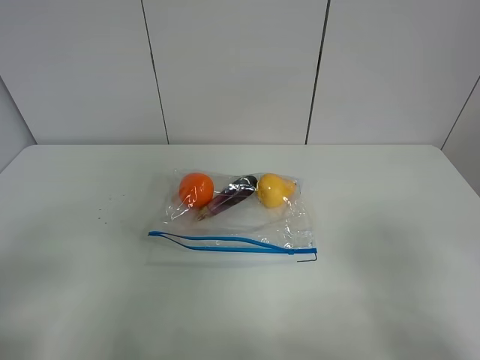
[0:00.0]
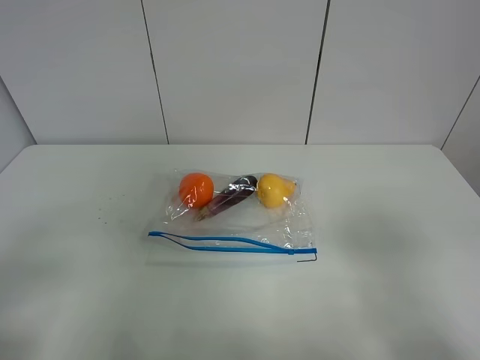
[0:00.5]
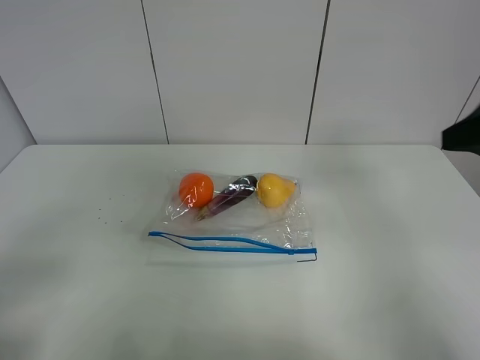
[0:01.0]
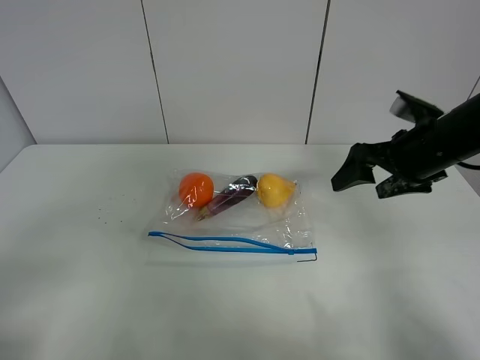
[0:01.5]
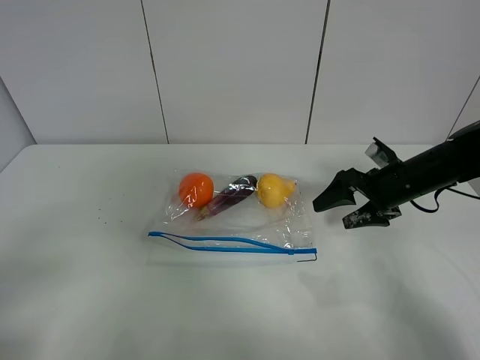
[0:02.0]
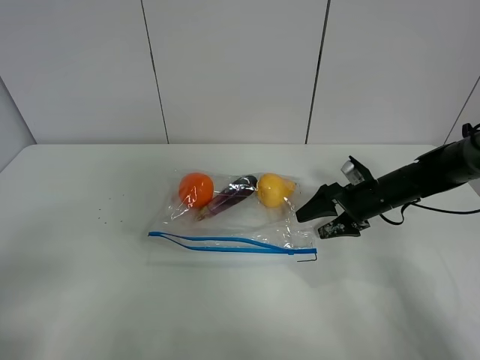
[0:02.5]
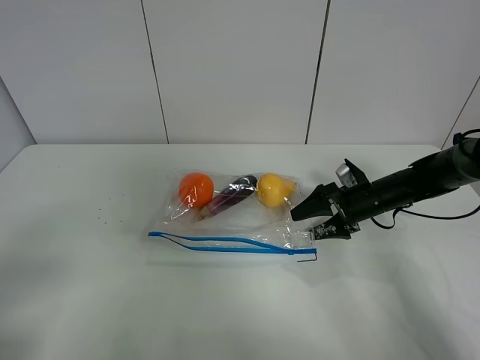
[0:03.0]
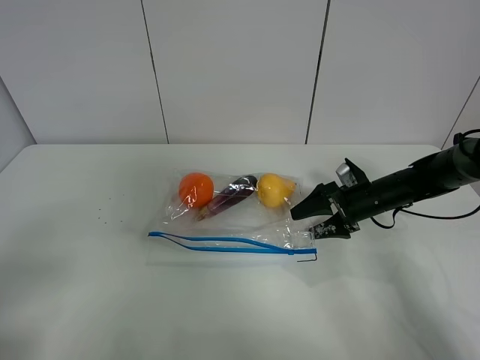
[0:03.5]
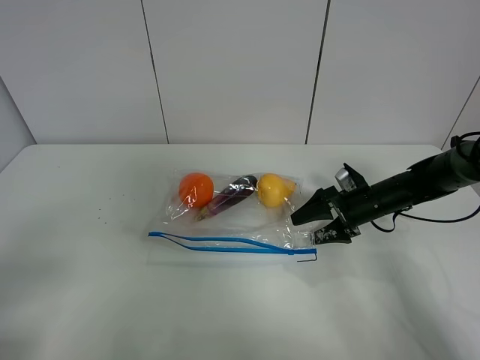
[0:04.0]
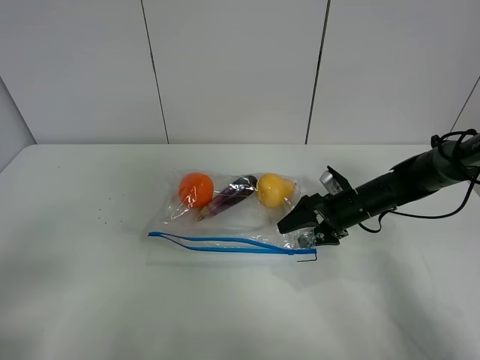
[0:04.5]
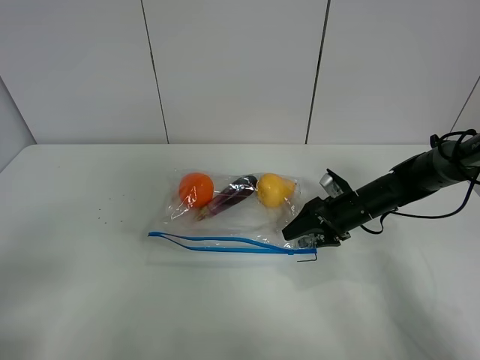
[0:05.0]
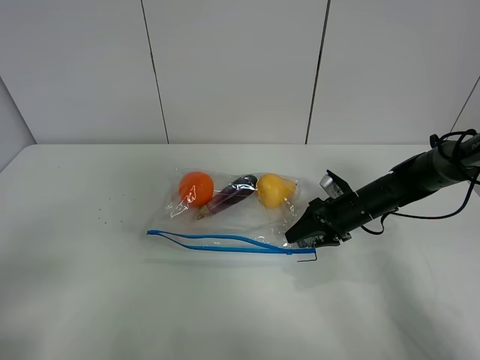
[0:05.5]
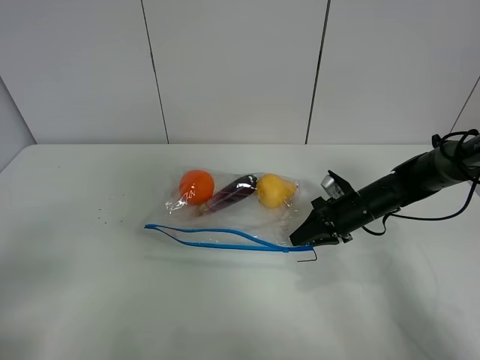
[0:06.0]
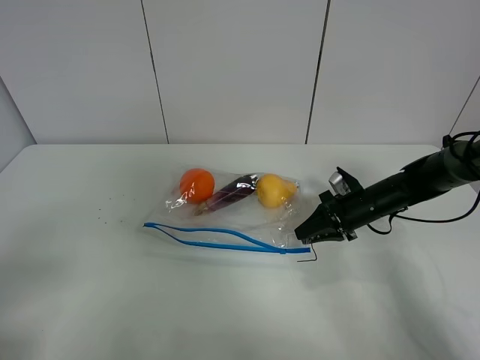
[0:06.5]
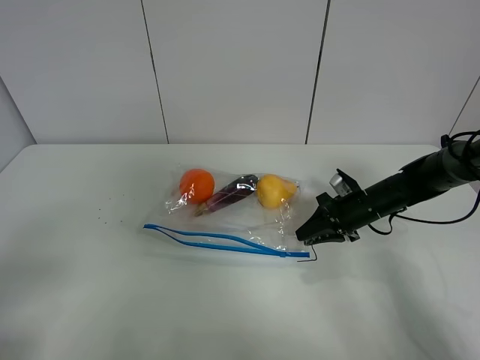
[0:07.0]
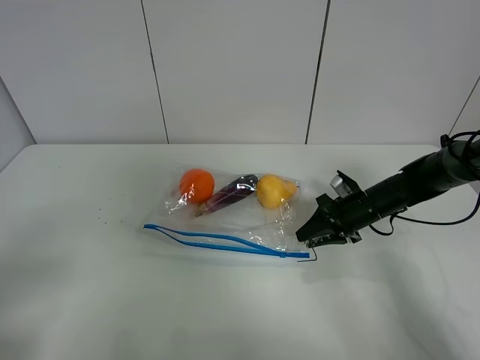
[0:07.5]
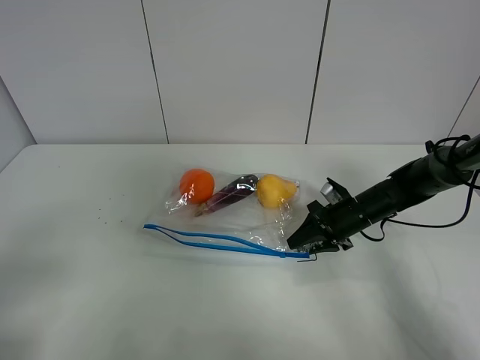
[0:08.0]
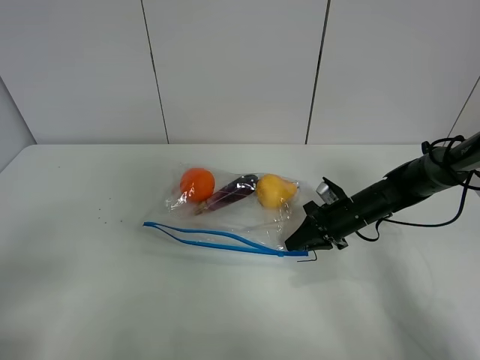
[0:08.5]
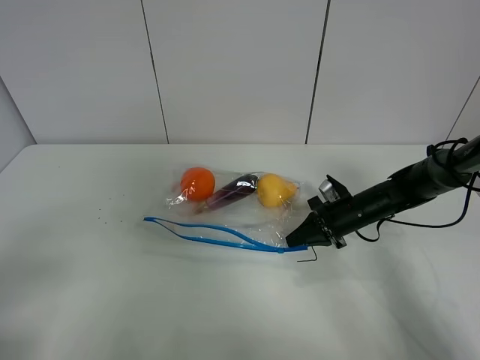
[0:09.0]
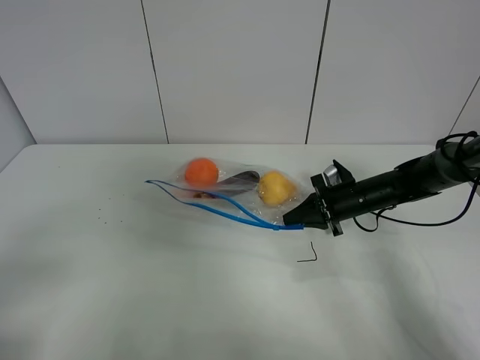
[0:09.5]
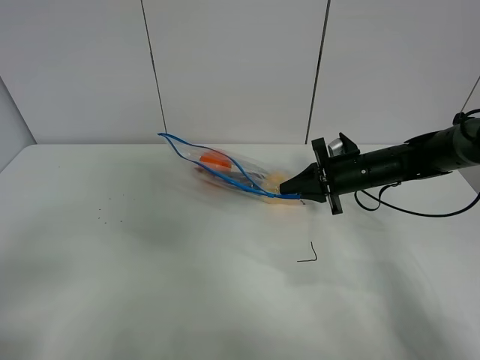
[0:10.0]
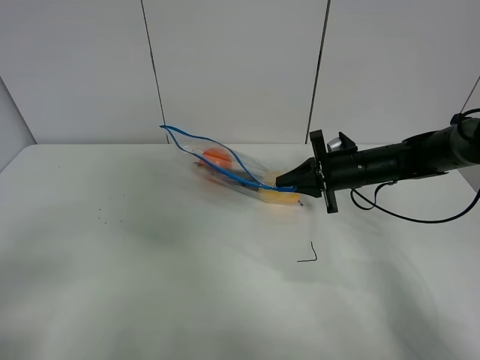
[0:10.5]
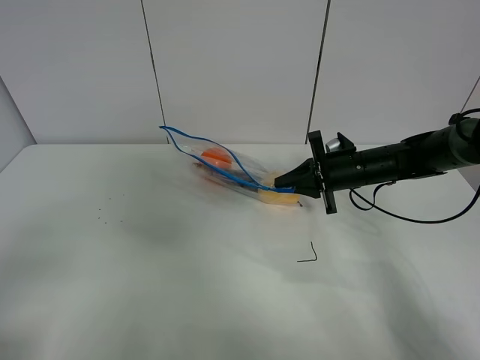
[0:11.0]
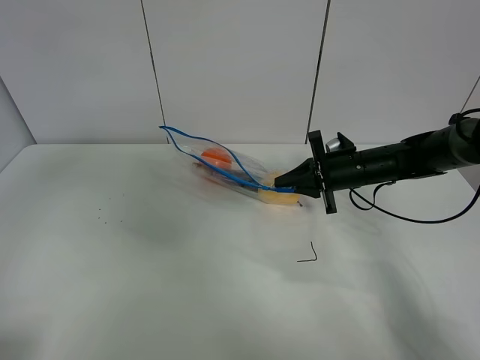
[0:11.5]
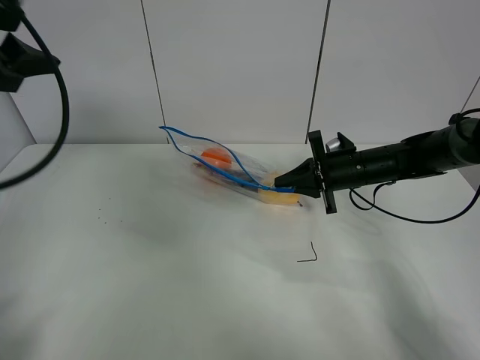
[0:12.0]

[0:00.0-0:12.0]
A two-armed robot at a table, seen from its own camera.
Step, 0:00.0 to 0:08.5: Grasp the fruit bag with right gripper.
Step, 0:09.0 to 0:10.0: Lift the fruit bag with your right gripper.
0:00.0 to 0:02.0: The right gripper shifts some 35 cm forward.
0:02.0 to 0:04.0: The right gripper goes some 5 cm downward.
0:04.0 to 0:06.0: The right gripper closes.
0:06.0 to 0:08.0: The grippers make only small movements.
0:08.0 to 0:10.0: The right gripper travels upward by some 10 cm, and closes.
0:10.0 to 0:12.0: The left gripper goes some 30 cm forward and upward.

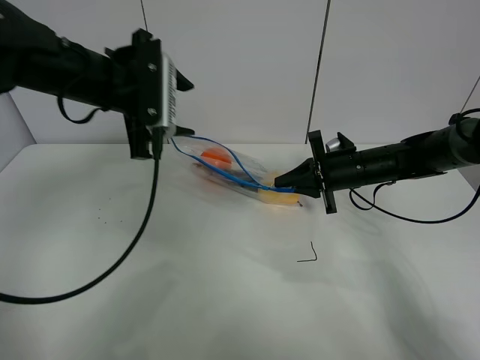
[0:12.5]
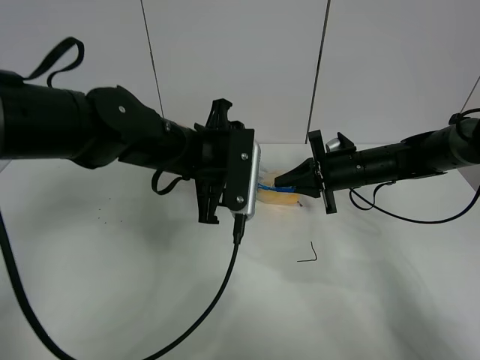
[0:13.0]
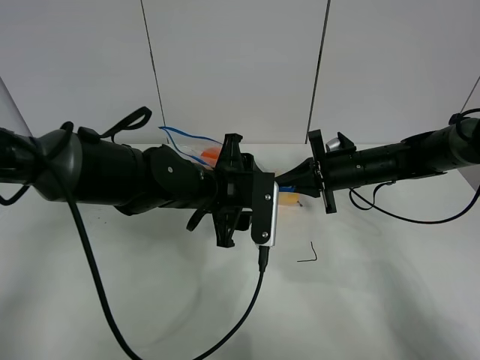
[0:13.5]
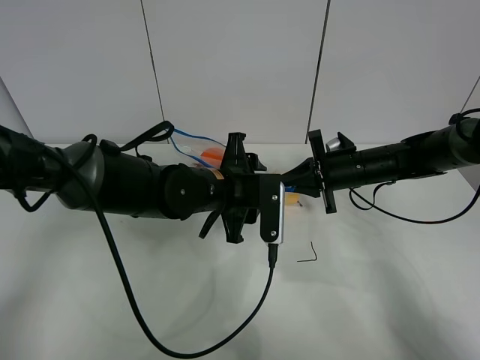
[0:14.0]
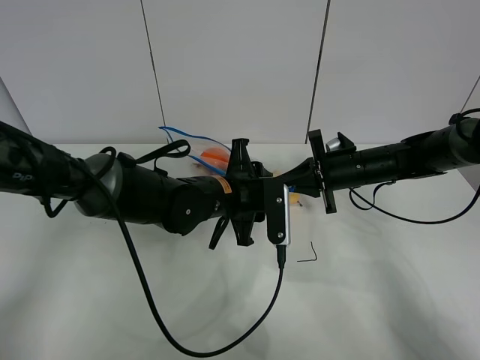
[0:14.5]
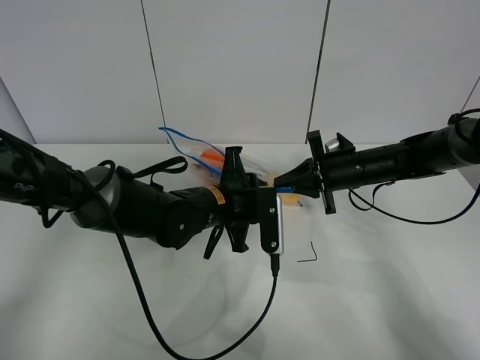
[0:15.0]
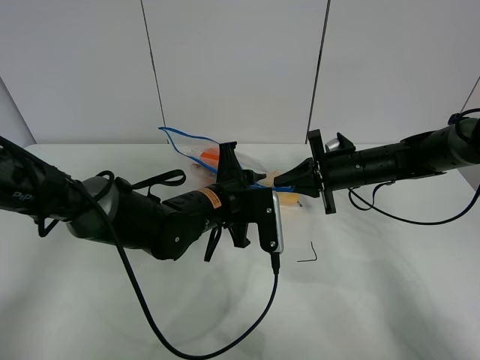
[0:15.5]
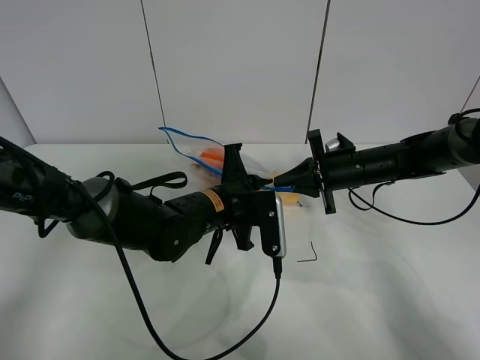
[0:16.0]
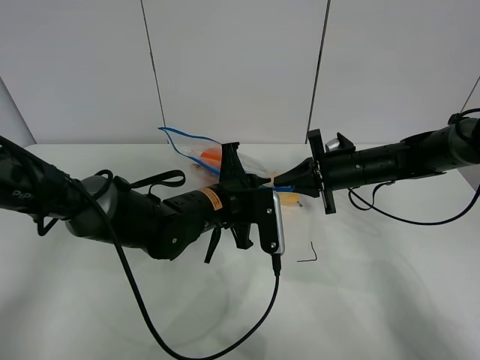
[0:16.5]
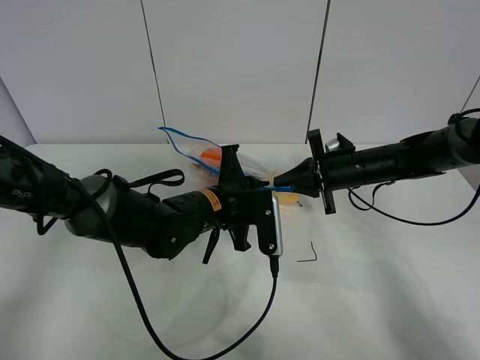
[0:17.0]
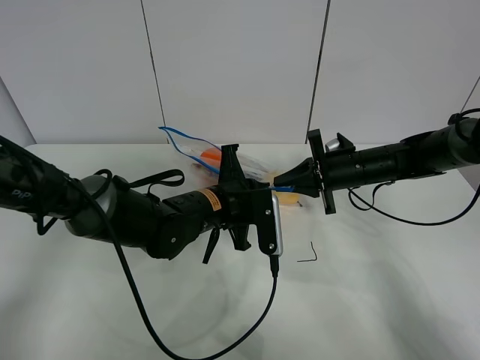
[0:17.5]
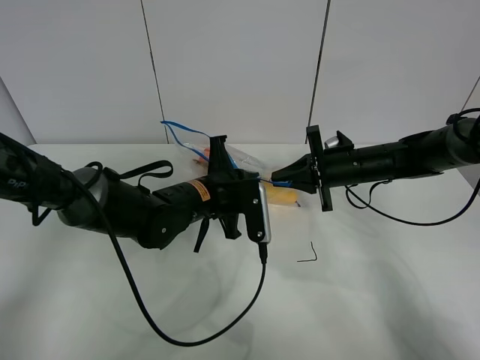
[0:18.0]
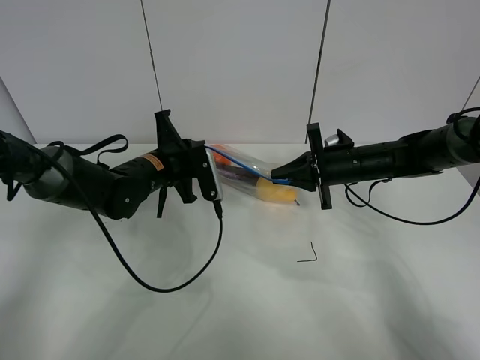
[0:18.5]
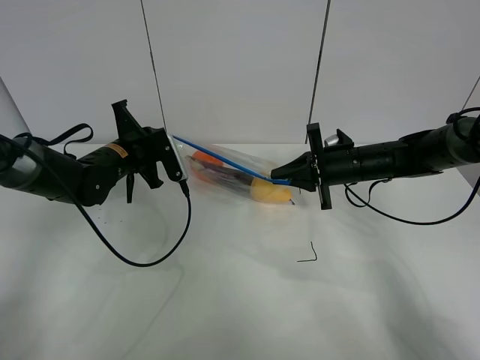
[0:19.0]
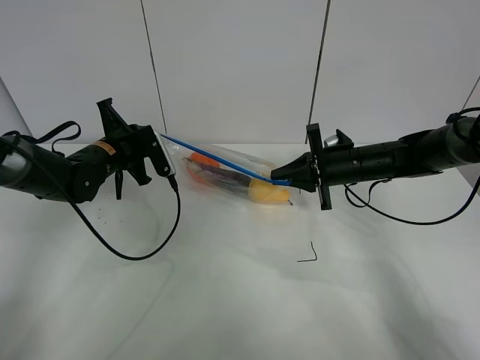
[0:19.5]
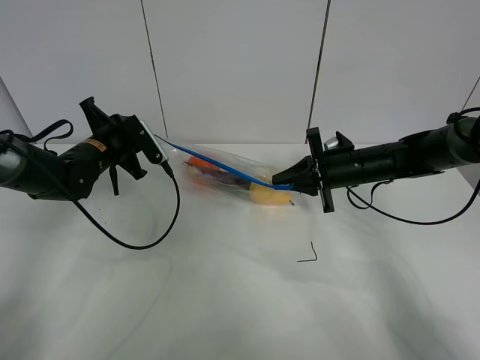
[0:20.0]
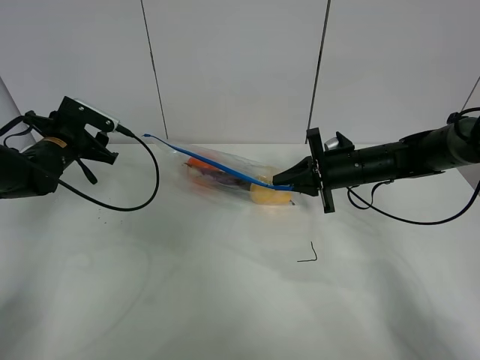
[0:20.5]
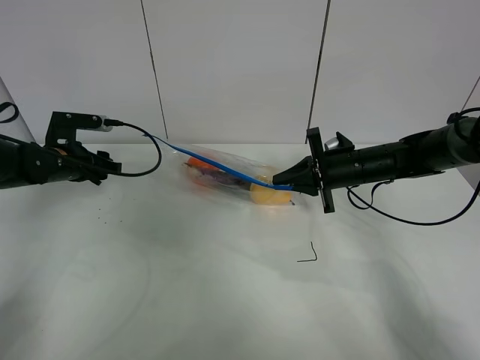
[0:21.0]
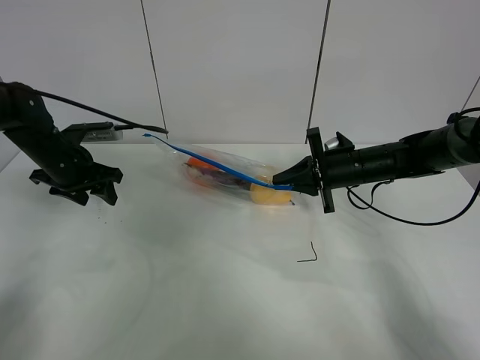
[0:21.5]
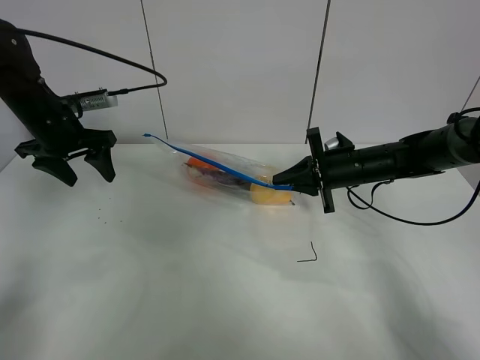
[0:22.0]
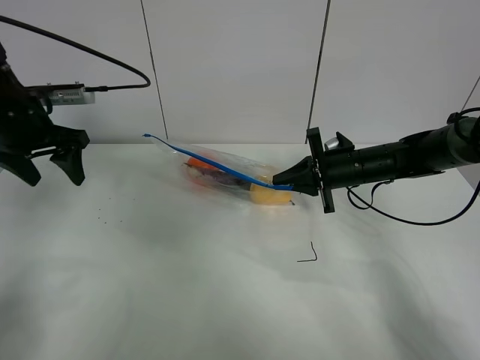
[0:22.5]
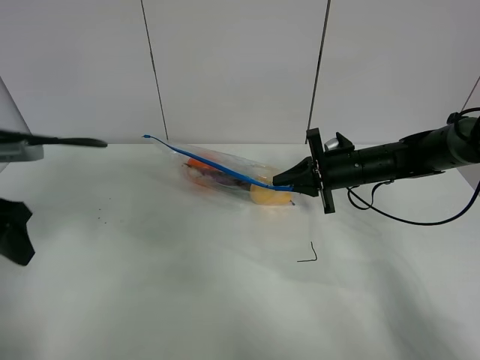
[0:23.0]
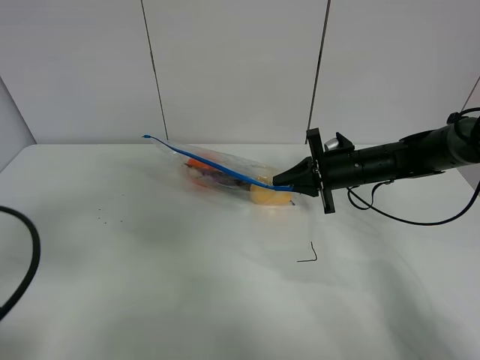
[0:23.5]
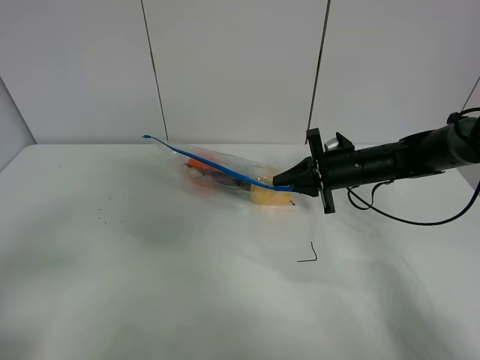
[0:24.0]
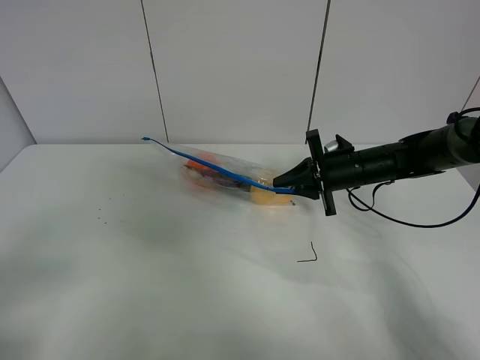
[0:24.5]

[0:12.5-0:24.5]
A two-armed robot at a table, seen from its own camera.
Step, 0:12.5 to 0:20.0: Pull the fruit bag with left gripper.
0:12.5 to 0:14.5: The left gripper is displaced downward and to the right by some 20 cm.
0:14.5 to 0:16.5: The left gripper closes up.
0:16.5 to 0:18.5: The left gripper heads to the left and forward, covering some 15 cm.
0:18.5 to 0:20.5: The left gripper heads to the left, covering roughly 15 cm, and opens.
0:20.5 to 0:22.5: The left gripper is displaced upward and backward by some 10 cm.
0:22.5 to 0:24.5: The left gripper heads backward, covering roughly 35 cm.

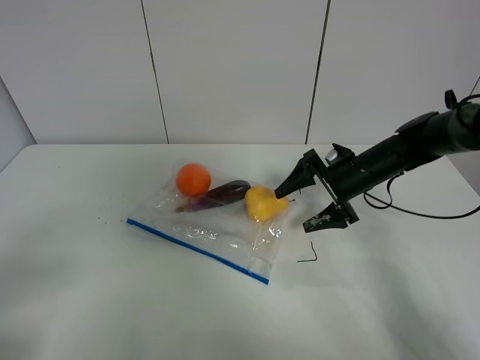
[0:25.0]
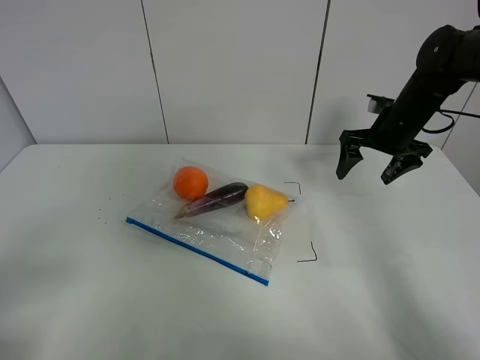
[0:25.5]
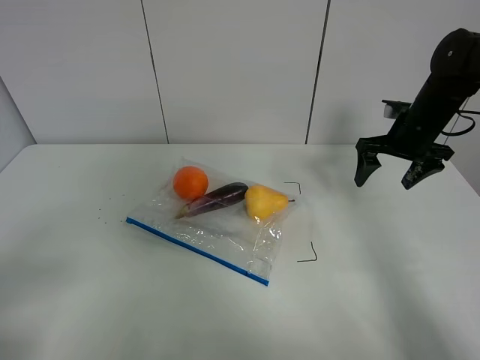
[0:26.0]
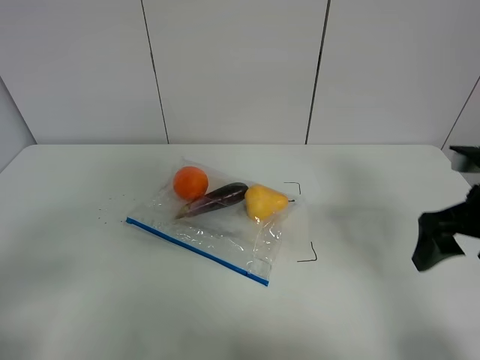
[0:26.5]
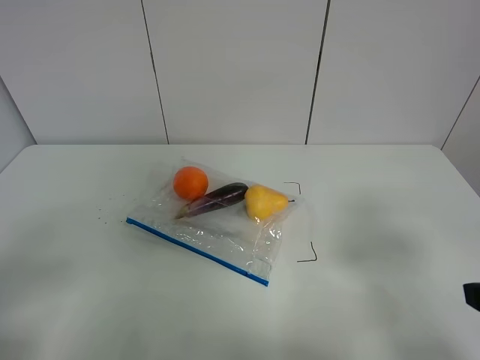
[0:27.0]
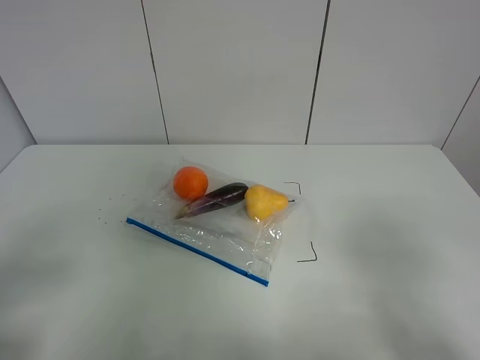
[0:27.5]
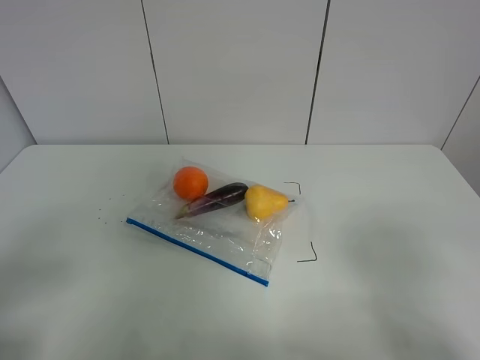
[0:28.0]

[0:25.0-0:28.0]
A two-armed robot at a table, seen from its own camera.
0:25.0 to 0:26.5: The right gripper moves backward, upward and to the right, about 20 cm.
0:26.5 to 0:28.0: The right gripper heads backward, covering roughly 20 cm.
